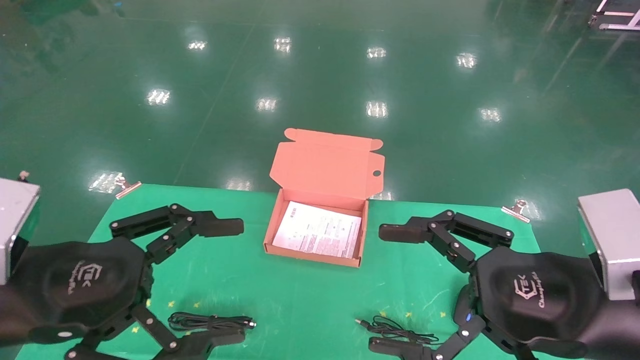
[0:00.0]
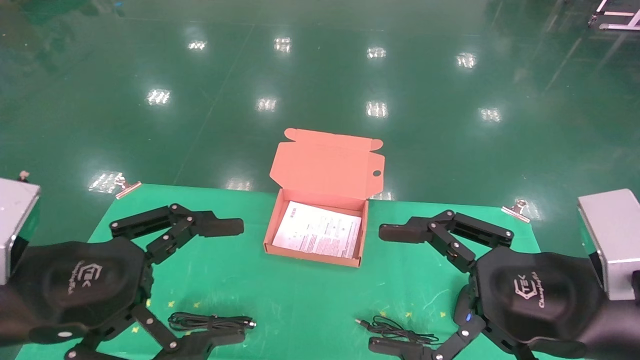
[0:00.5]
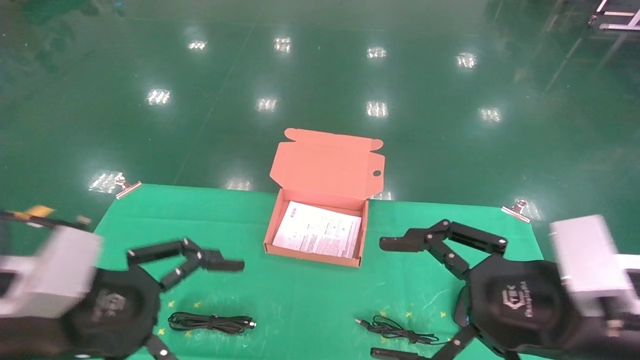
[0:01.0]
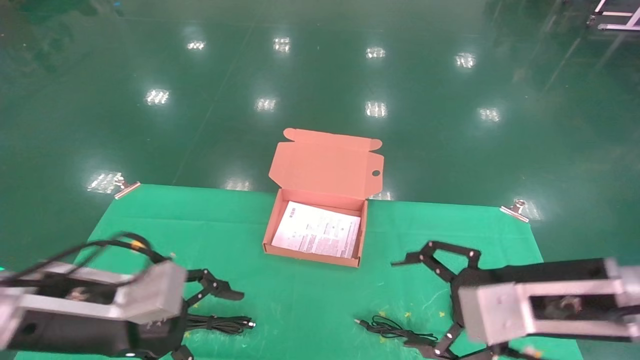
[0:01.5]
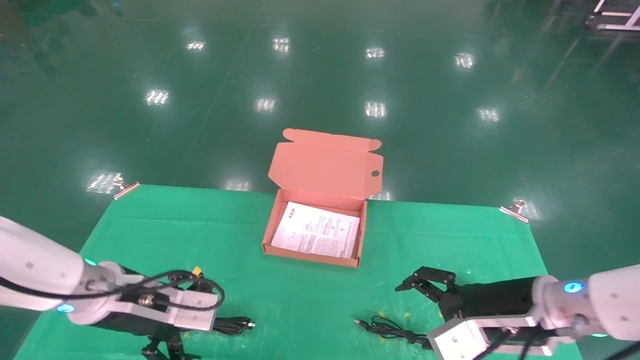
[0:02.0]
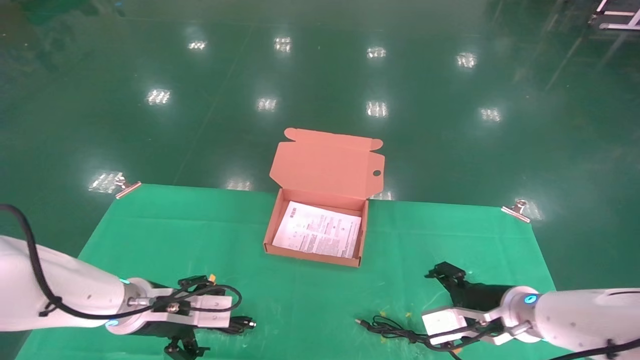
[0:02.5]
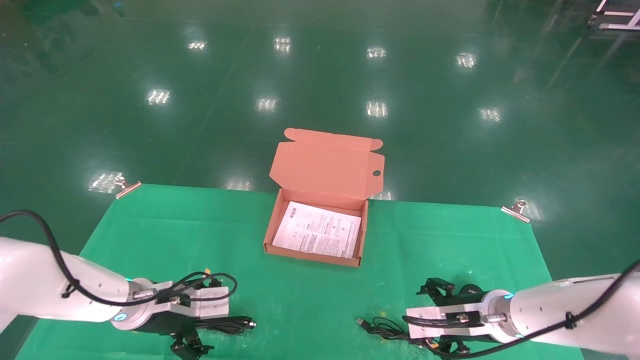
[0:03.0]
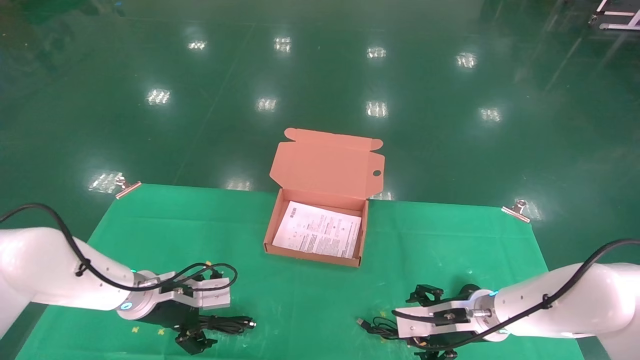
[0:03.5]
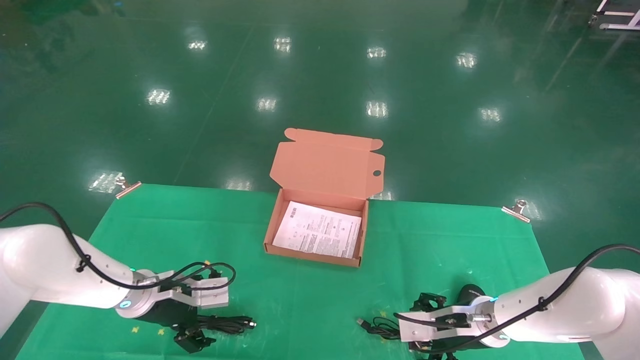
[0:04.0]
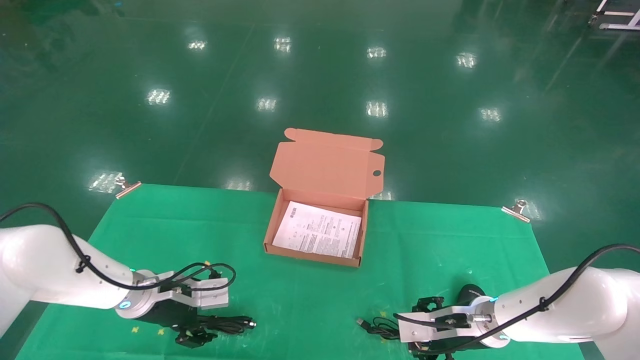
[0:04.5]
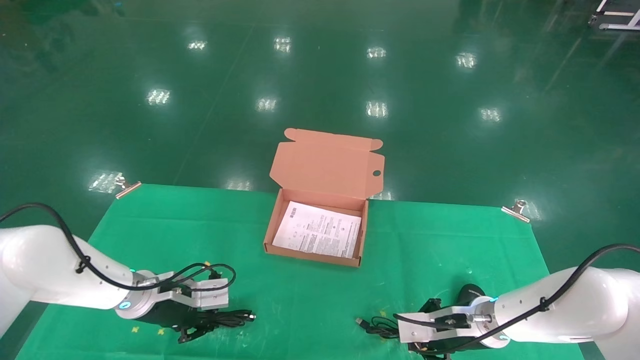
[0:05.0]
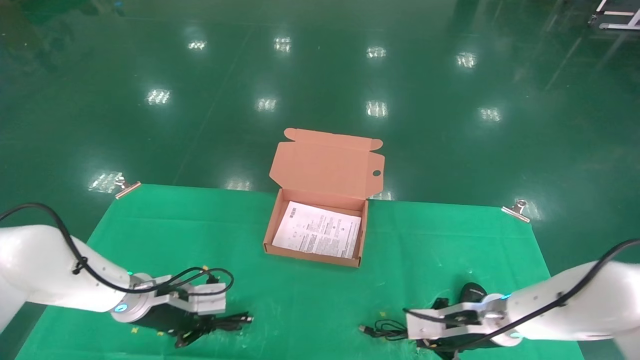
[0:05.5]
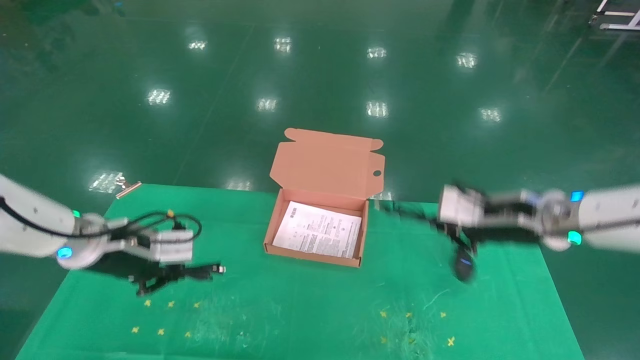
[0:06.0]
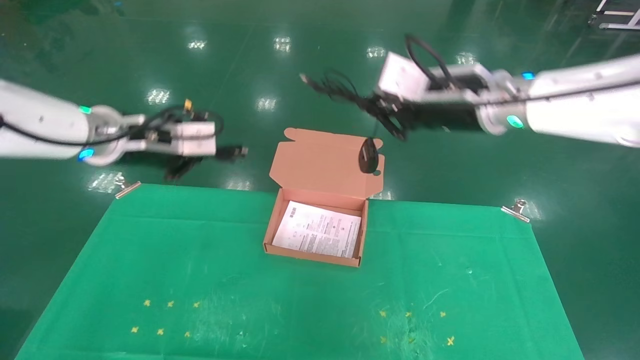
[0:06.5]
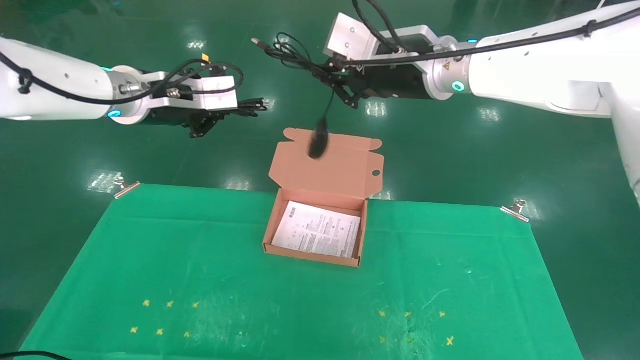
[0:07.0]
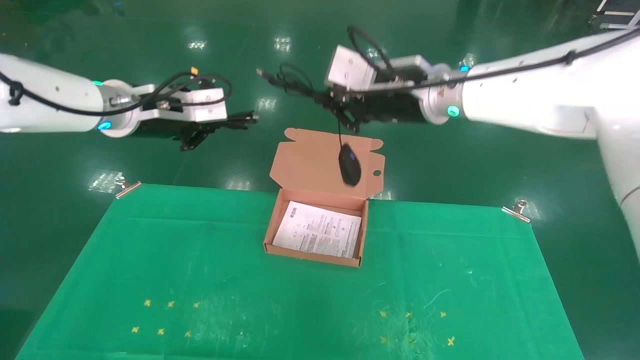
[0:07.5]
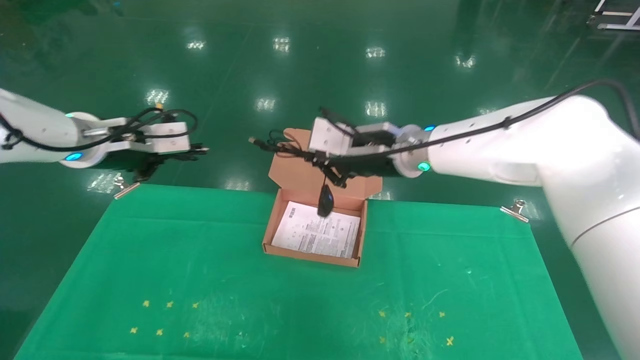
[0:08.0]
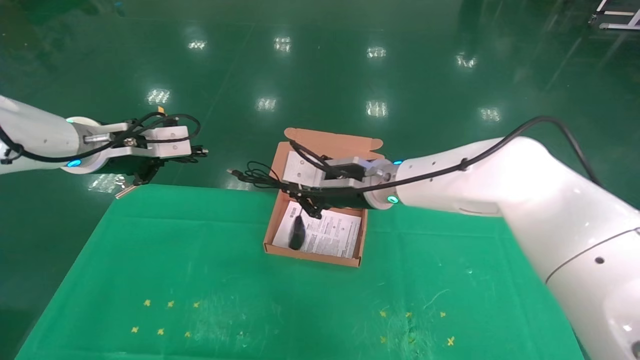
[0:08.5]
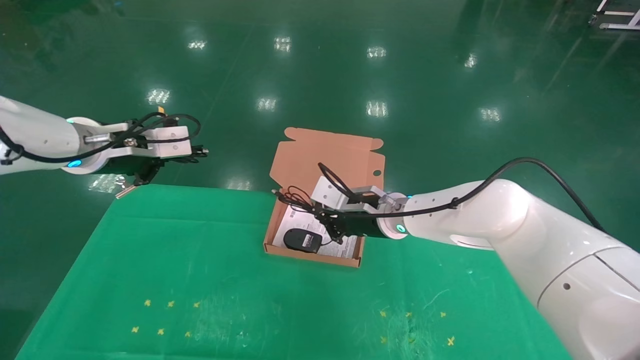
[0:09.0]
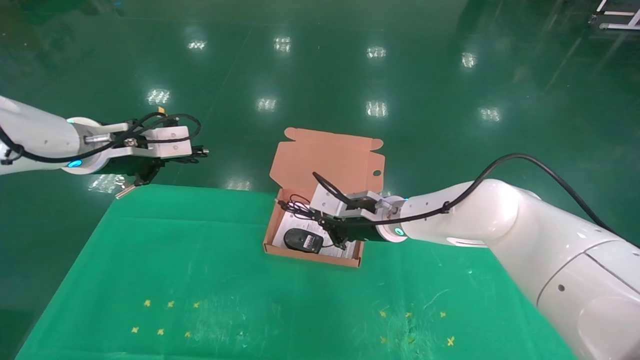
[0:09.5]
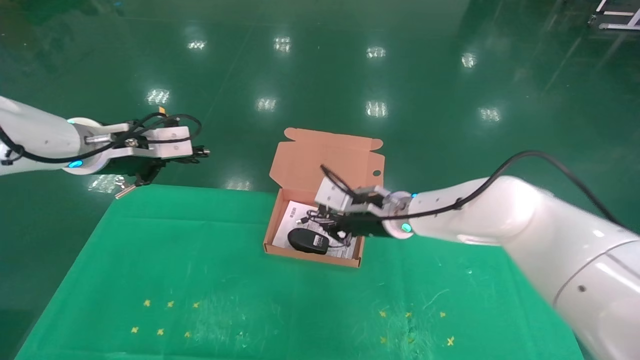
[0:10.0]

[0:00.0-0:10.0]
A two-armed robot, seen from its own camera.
Task of the whole recording: grasp data cable left put into box grasp mouse right put into box.
Step, 0:01.0 to 0:06.0: Grab and pick up both the mouse and power cord from the accessory packaging area at the same time.
0:00.0 to 0:02.0: The grippers both shift forward and downward by approximately 15 cm.
0:02.0 to 0:04.0: The left gripper travels forward and downward by about 10 cm. Meanwhile the right gripper goes approximately 15 cm downward and forward.
0:04.0 to 0:06.0: The left gripper goes about 10 cm upward, and closes its fingers. The right gripper heads upward, covering approximately 20 cm, and closes up.
0:06.0 to 0:08.0: The left gripper goes roughly 15 cm upward; the right gripper moves to the left, about 15 cm.
0:08.0 to 0:10.0: The right gripper goes some 10 cm downward.

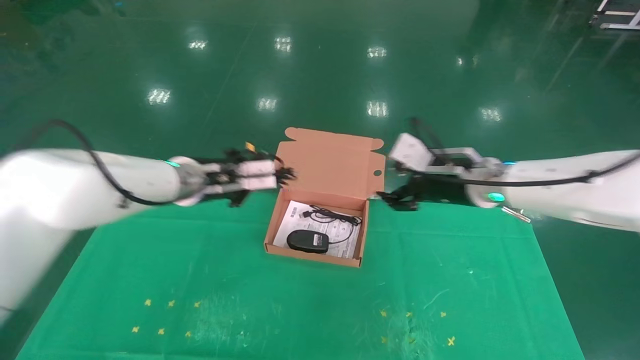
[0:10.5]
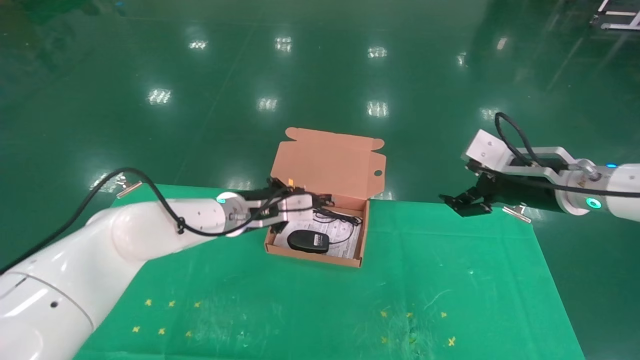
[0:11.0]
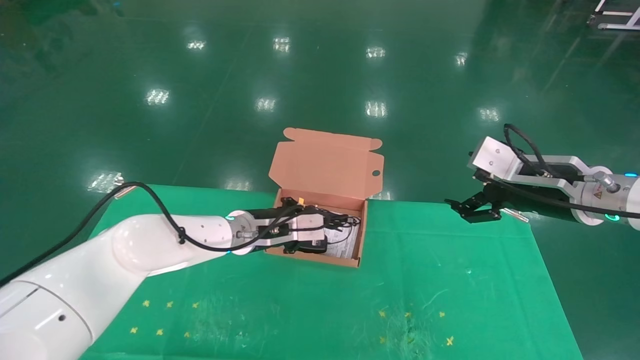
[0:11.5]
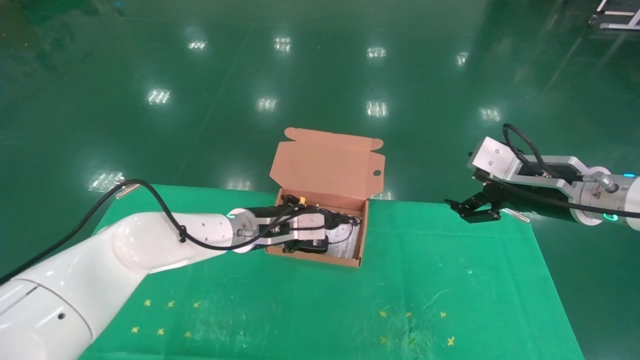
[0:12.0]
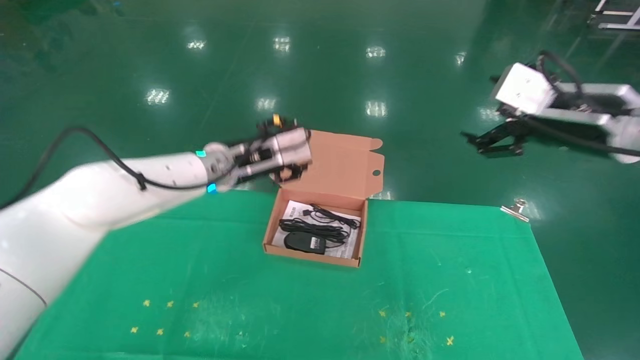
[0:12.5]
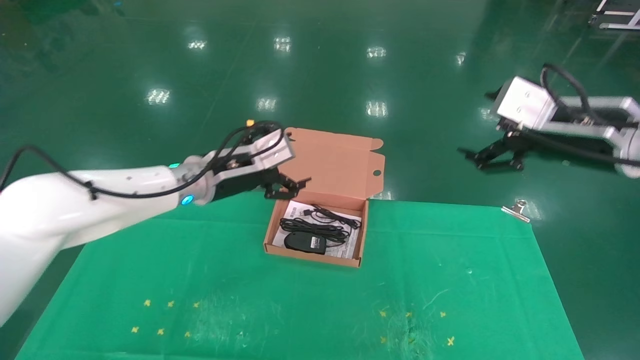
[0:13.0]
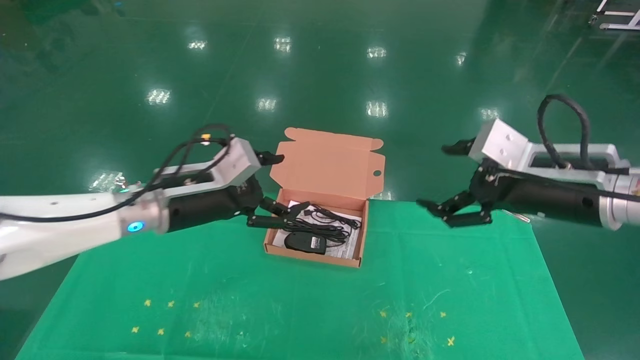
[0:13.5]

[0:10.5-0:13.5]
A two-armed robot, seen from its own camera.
Task of the whole recording: grasp data cable left put into box grasp mouse right put into box.
0:10.5 to 0:12.0: The right gripper travels to the right and backward by roughly 10 cm, and opens up. The left gripper shifts approximately 10 cm downward and to the right.
0:12.0 to 0:13.5: The right gripper goes approximately 5 cm backward; the left gripper travels upward, to the left and backward by some 15 cm, and opens up.

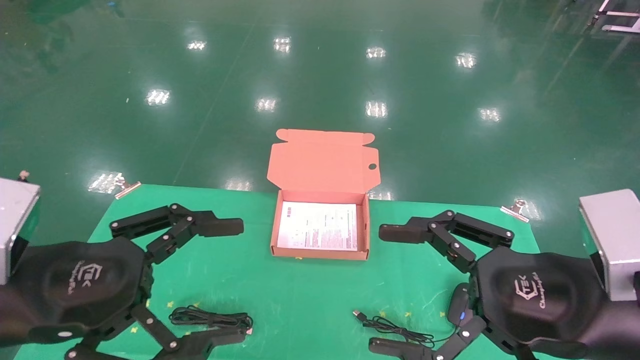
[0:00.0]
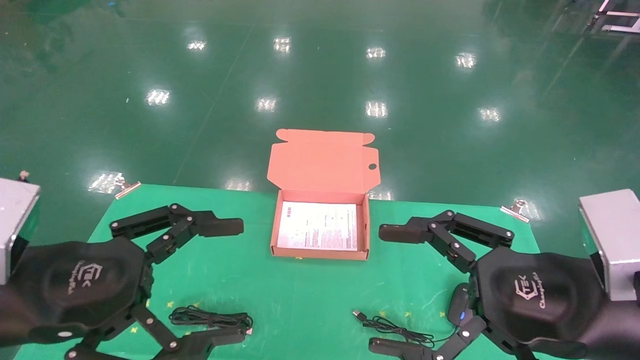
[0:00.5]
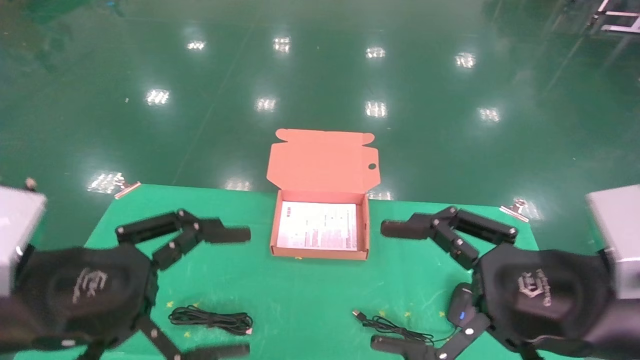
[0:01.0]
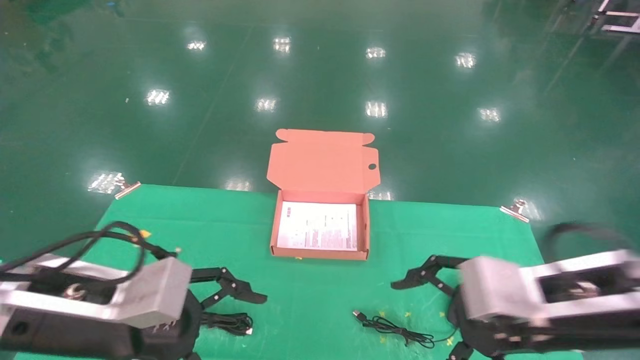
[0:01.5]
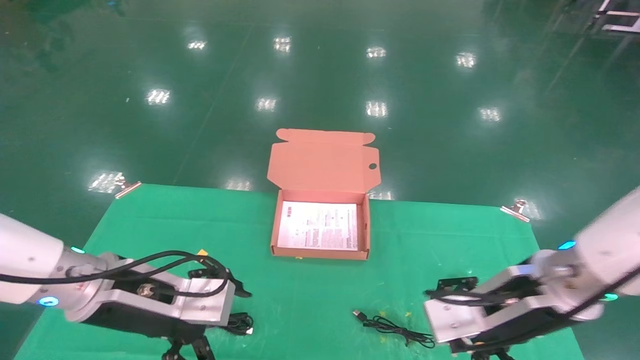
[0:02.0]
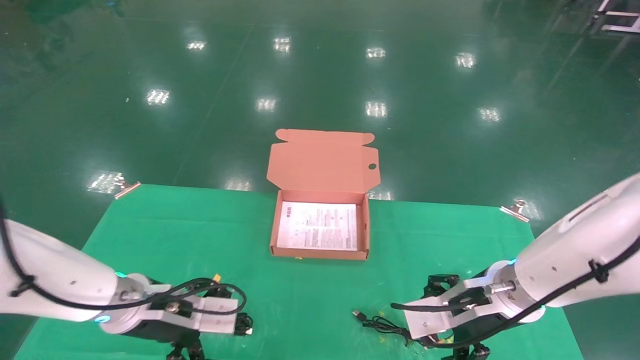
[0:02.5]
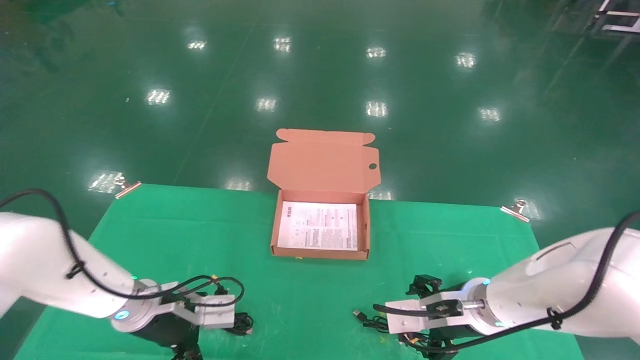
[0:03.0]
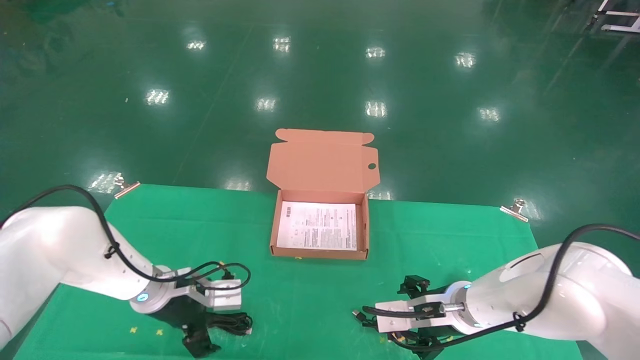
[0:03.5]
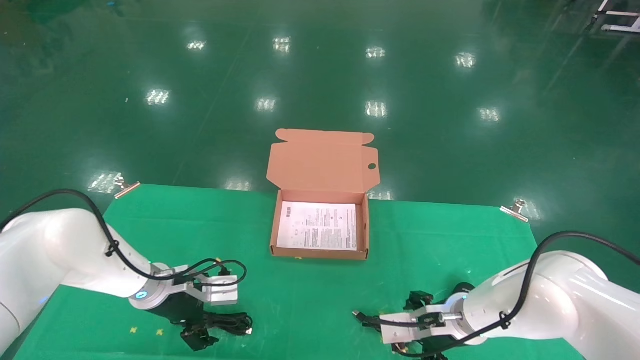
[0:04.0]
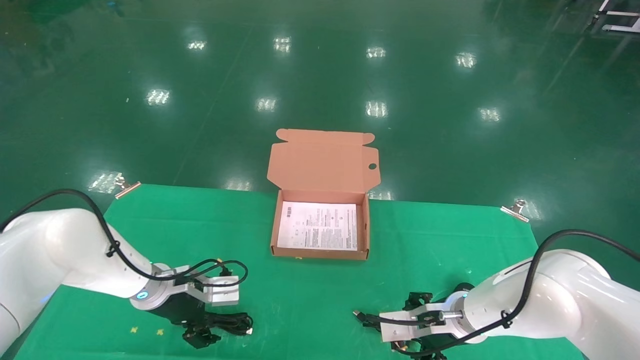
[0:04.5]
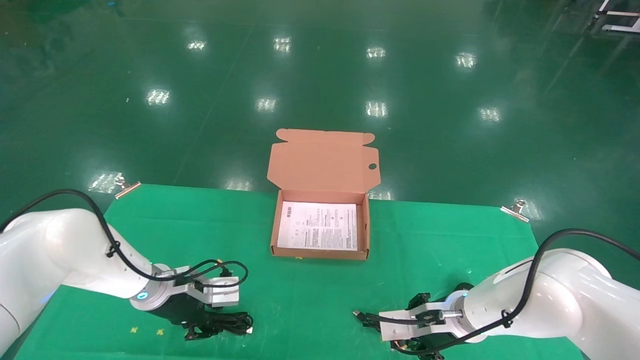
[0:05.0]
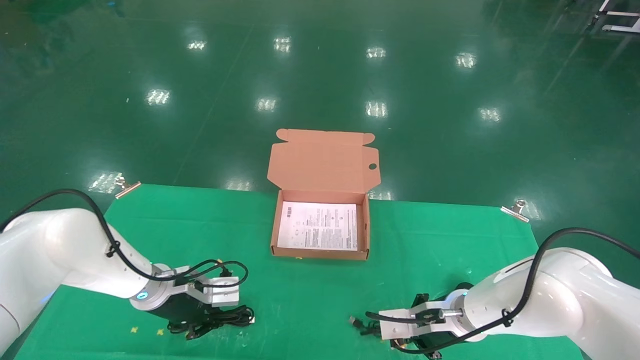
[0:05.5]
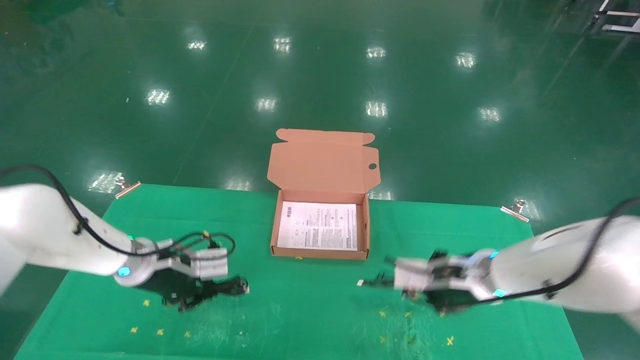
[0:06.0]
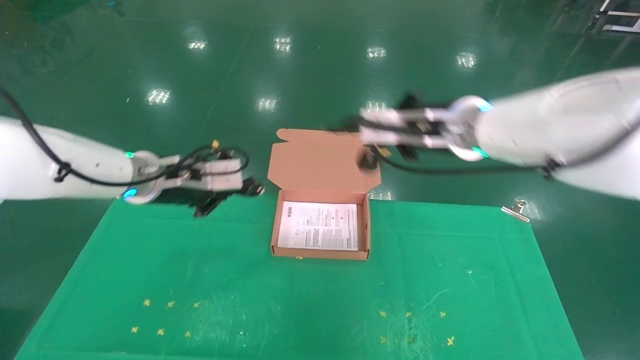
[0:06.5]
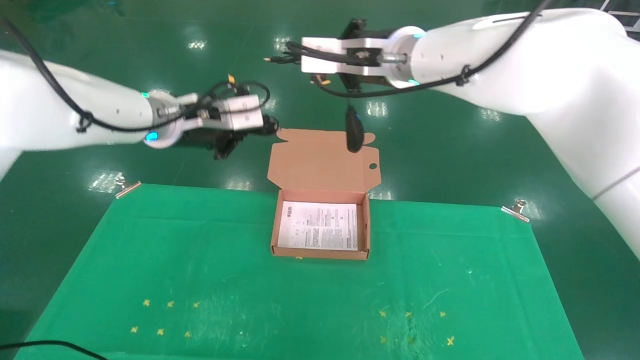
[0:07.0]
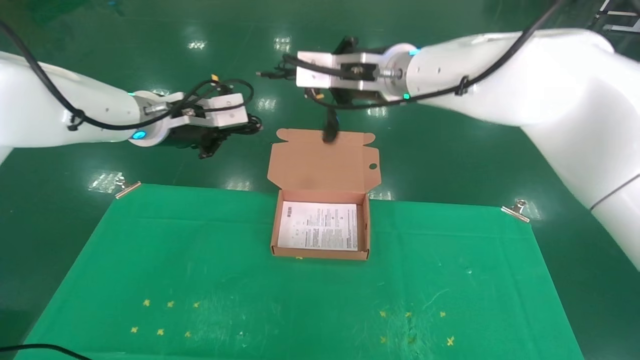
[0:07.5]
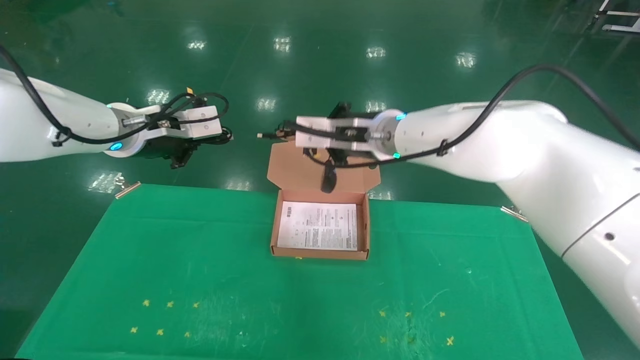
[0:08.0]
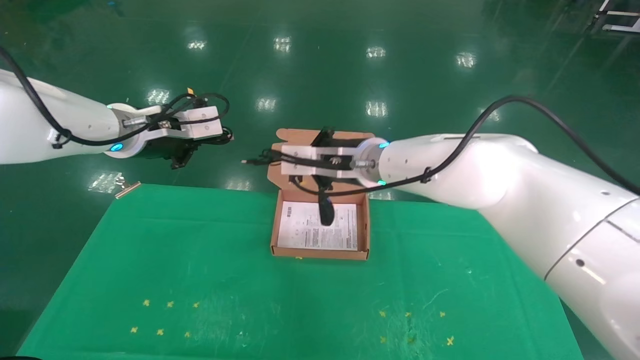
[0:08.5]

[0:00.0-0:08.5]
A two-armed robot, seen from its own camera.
Task of the whole recording: grasp data cable left put into box grasp mouse right put into box.
Step, 0:01.5 to 0:06.0: Grab and pick up both the mouse and power cord from the accessory packaging area at the same time.
0:00.0 to 0:02.0: The left gripper heads forward, downward and to the right, covering approximately 15 cm. Meanwhile the right gripper travels forward by approximately 10 cm.
0:02.0 to 0:04.0: The left gripper shifts approximately 15 cm forward and downward; the right gripper heads downward and forward, covering roughly 15 cm.
0:04.0 to 0:06.5: The grippers both shift upward by some 25 cm. The left gripper closes its fingers, while the right gripper closes its fingers.
0:06.5 to 0:08.5: The left gripper shifts approximately 5 cm upward. Meanwhile the right gripper shifts about 10 cm to the left and downward.
